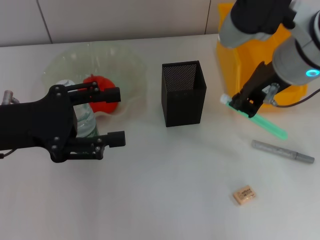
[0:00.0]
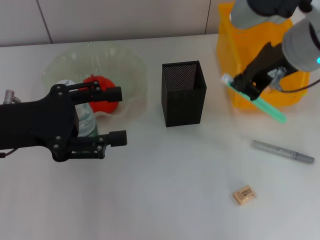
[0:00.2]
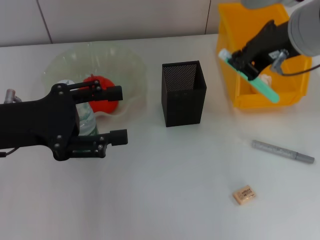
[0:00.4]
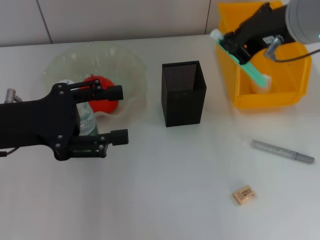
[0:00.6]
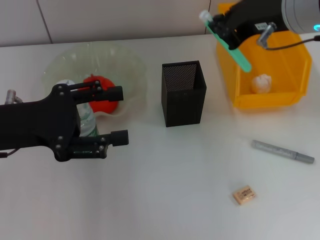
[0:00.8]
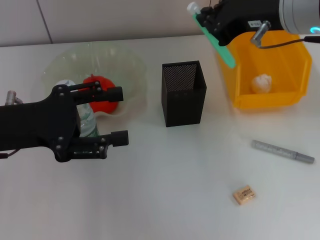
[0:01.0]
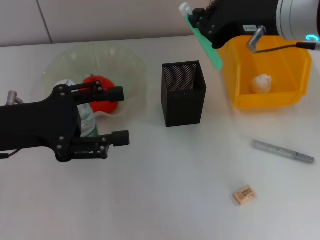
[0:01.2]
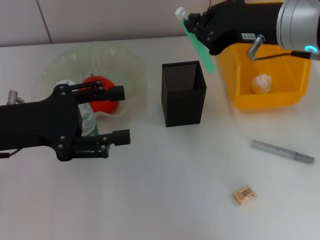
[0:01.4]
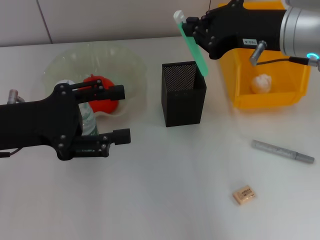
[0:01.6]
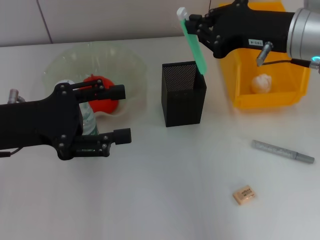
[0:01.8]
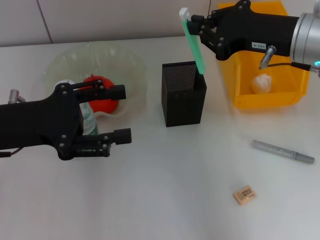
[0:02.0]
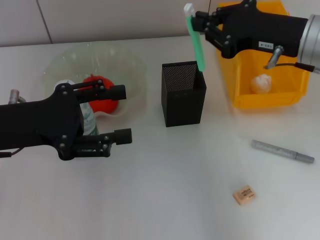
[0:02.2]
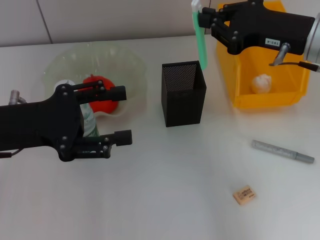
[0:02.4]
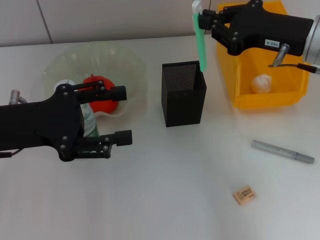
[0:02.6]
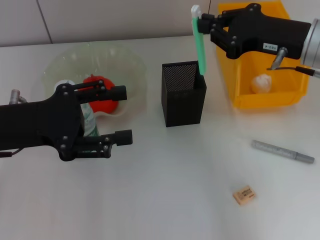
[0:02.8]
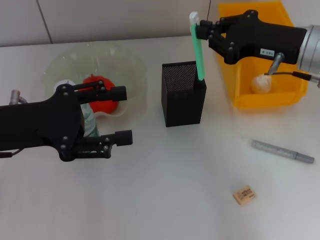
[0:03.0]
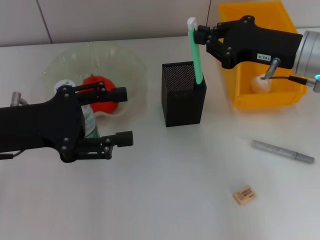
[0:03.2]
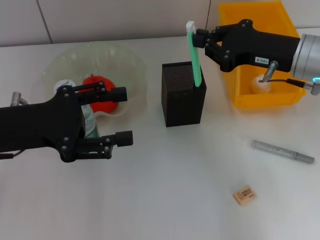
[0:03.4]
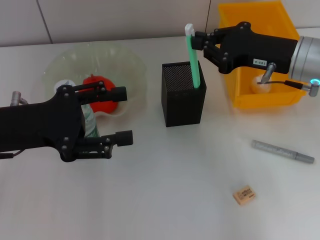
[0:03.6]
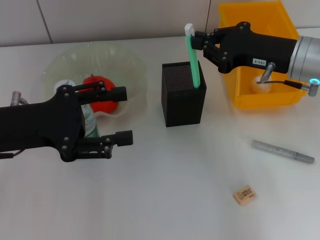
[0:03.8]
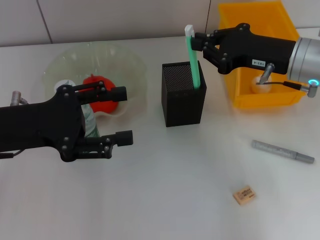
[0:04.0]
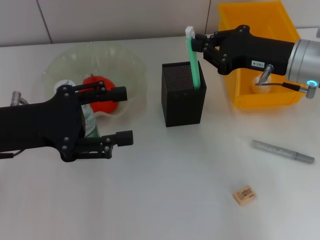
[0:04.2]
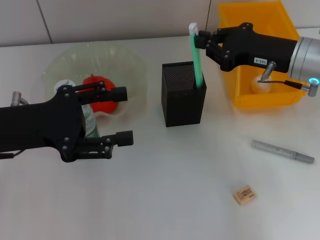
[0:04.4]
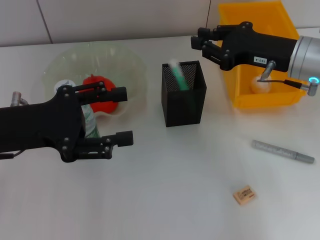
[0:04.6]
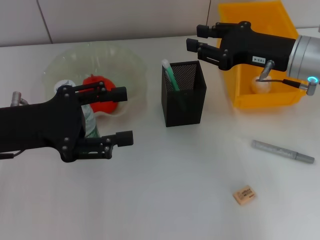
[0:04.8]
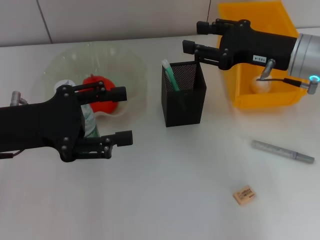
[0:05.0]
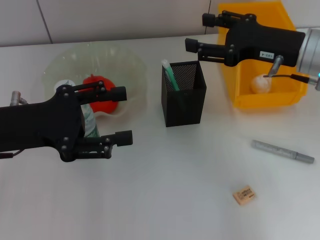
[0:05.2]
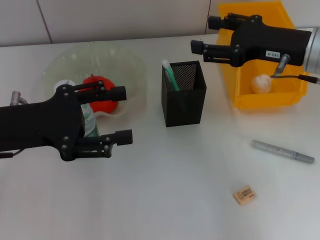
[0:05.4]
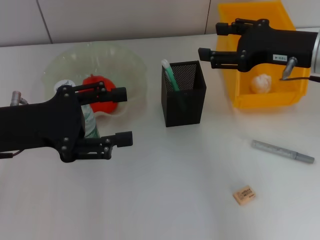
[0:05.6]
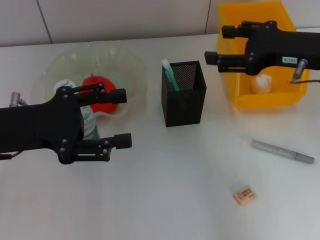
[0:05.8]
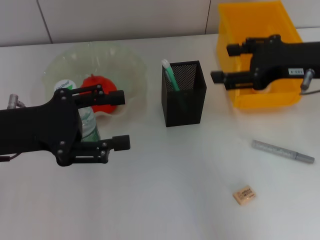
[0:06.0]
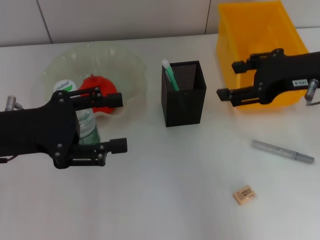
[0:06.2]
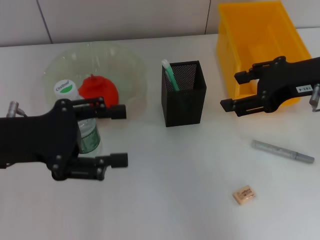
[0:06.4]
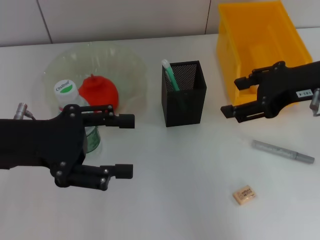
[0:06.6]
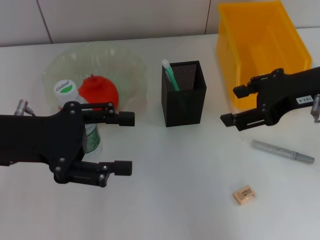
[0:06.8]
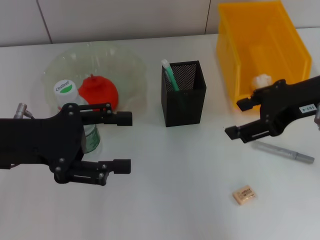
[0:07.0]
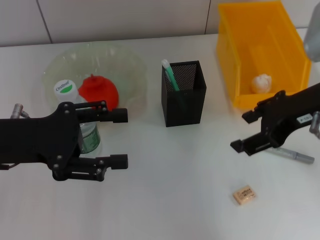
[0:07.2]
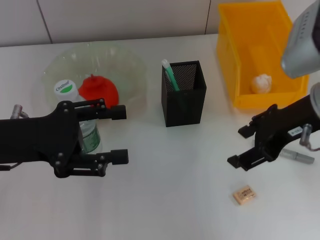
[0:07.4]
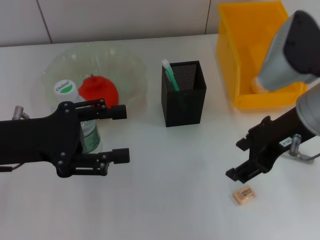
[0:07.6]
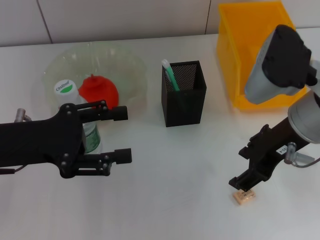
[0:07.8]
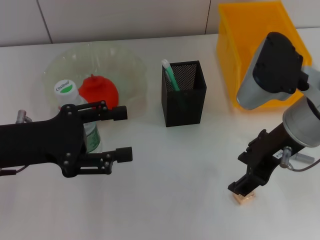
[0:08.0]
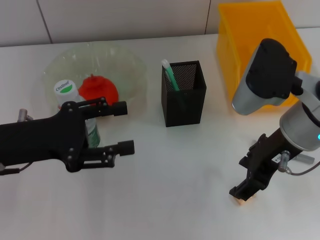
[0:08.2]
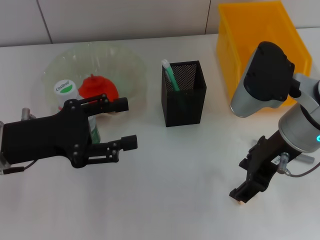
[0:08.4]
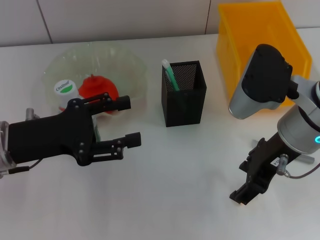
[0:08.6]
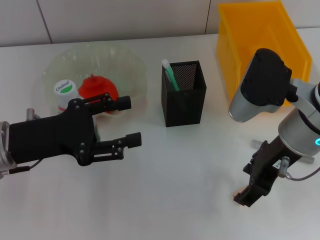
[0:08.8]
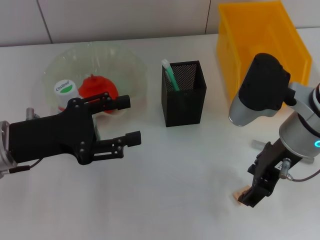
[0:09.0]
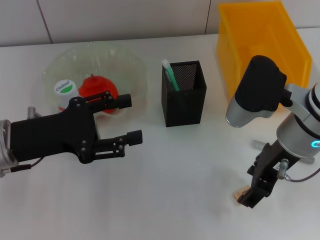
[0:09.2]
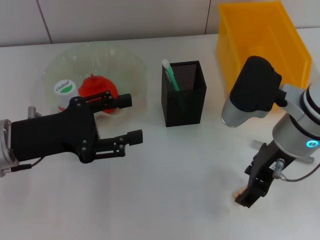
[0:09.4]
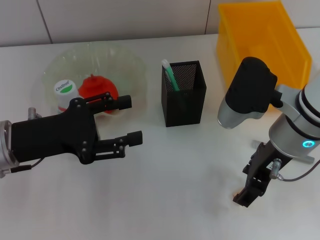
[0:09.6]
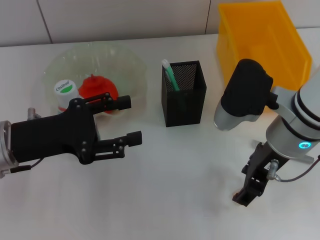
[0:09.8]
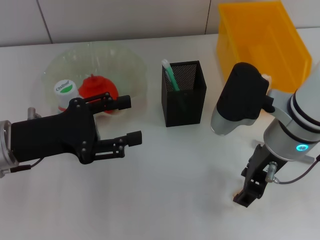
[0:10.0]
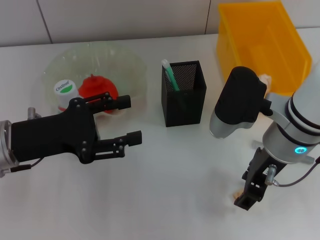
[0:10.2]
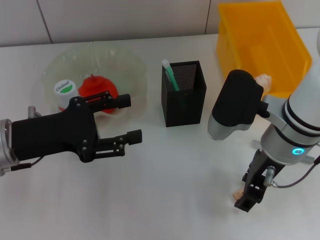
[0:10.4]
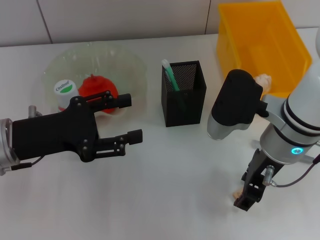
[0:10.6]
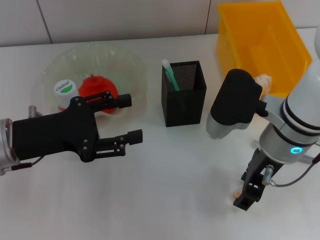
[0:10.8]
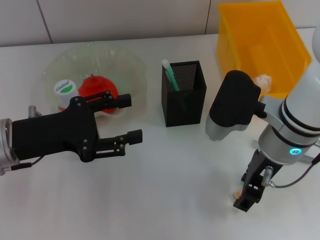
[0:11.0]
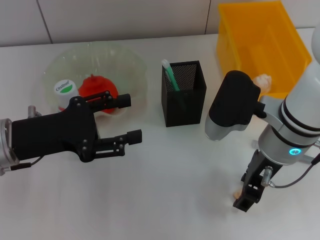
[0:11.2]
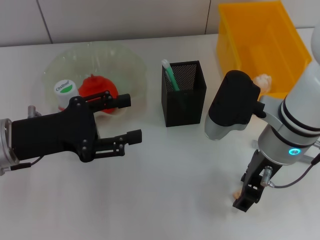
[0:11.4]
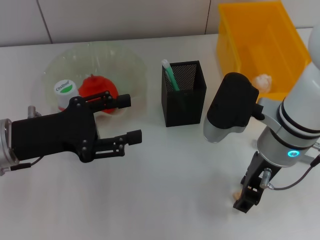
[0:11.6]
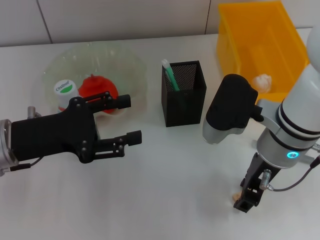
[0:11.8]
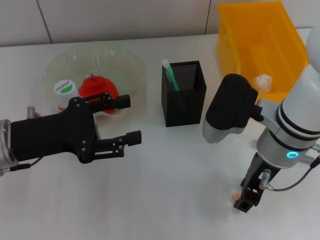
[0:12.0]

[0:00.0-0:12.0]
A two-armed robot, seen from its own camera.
Step, 0:00.0 to 0:04.6: Place the blue utility knife into the pen holder with the right hand.
0:01.6 to 0:03.0: The right gripper ends up roughly 5 cm from where it was.
0:03.0 to 0:04.4: The grippers move only a little.
0:04.4 to 0:06.0: The right gripper moves upward, some 5 cm, and opens.
0:06.0 to 0:07.6: The right gripper travels to the left by some 5 cm.
0:07.6 to 0:09.0: The grippers make only small movements.
0:09.0 to 0:10.4: The grippers make only small movements.
0:10.4 to 0:12.0: The two grippers keep their place.

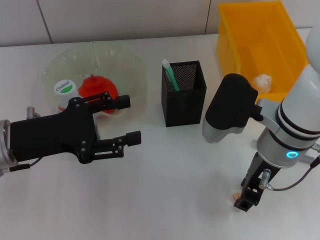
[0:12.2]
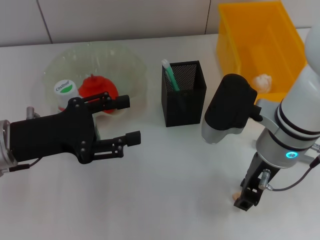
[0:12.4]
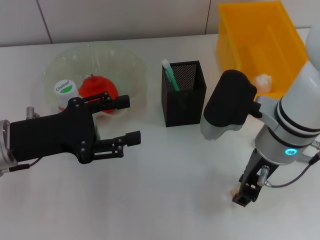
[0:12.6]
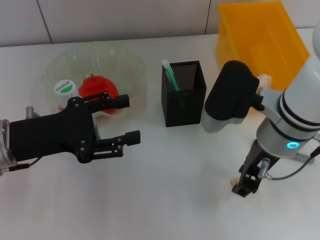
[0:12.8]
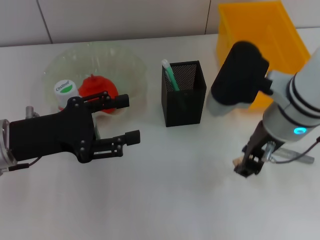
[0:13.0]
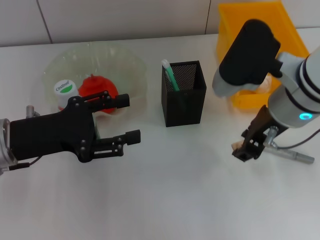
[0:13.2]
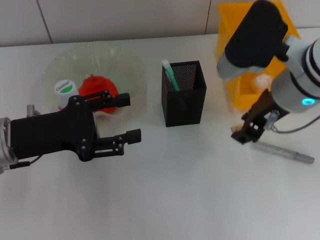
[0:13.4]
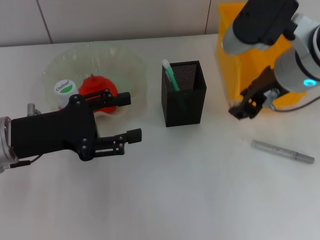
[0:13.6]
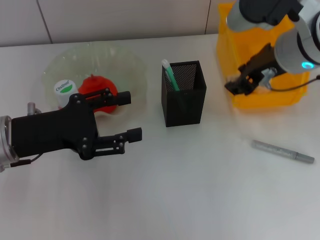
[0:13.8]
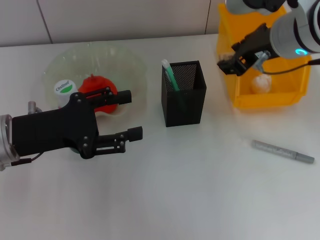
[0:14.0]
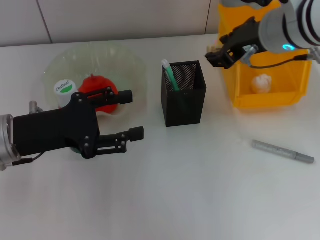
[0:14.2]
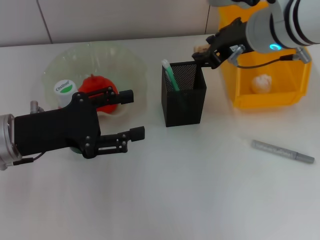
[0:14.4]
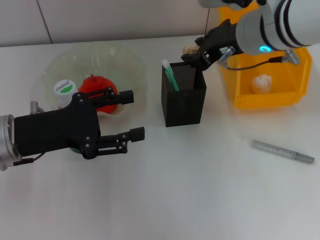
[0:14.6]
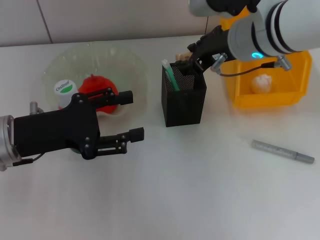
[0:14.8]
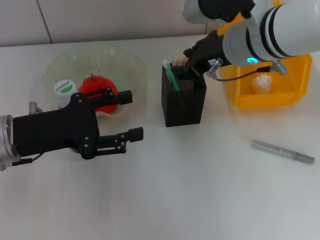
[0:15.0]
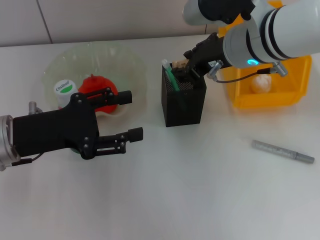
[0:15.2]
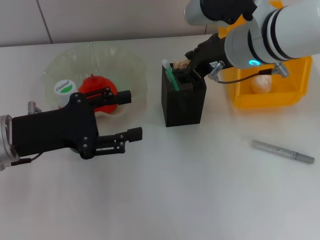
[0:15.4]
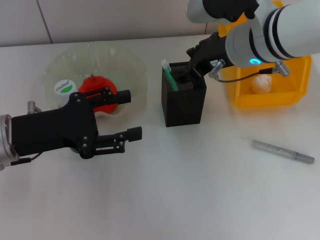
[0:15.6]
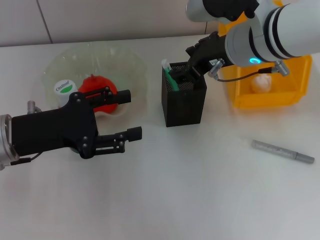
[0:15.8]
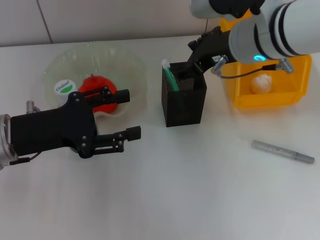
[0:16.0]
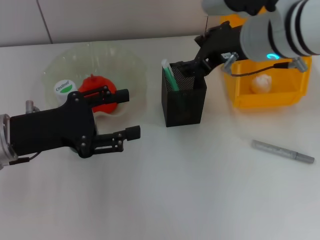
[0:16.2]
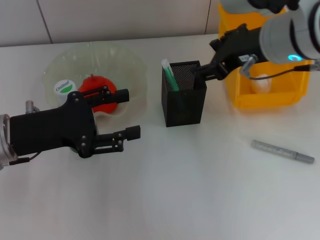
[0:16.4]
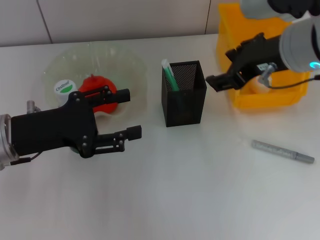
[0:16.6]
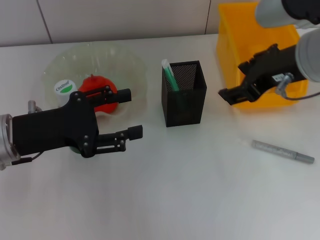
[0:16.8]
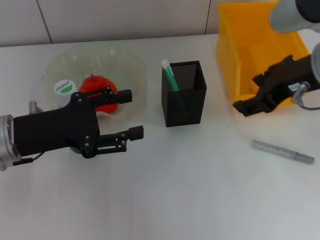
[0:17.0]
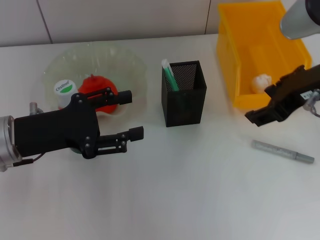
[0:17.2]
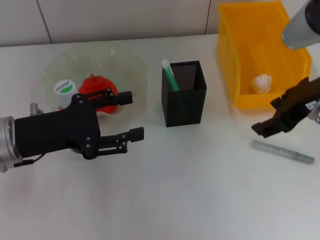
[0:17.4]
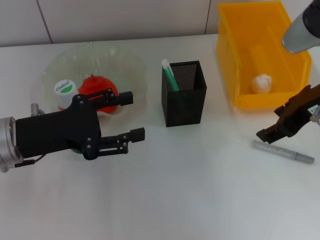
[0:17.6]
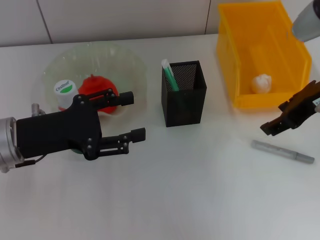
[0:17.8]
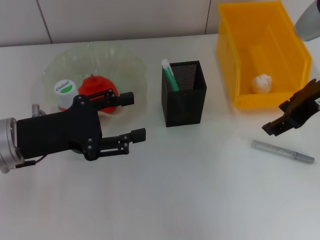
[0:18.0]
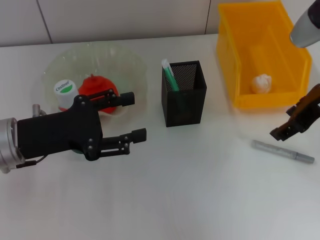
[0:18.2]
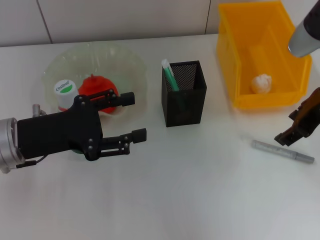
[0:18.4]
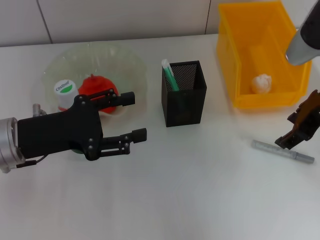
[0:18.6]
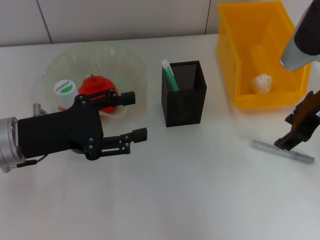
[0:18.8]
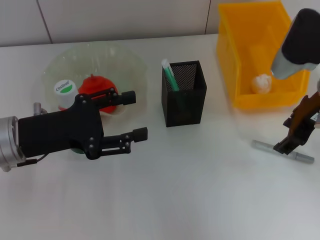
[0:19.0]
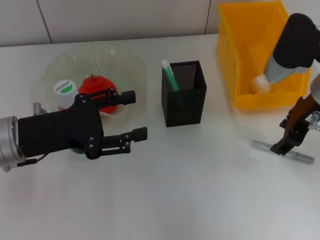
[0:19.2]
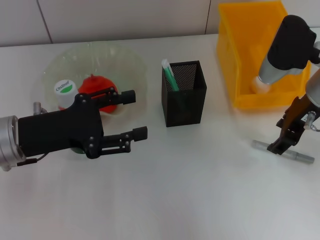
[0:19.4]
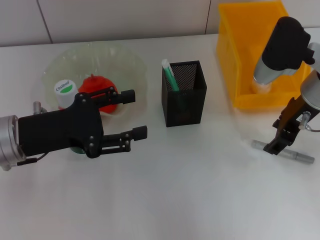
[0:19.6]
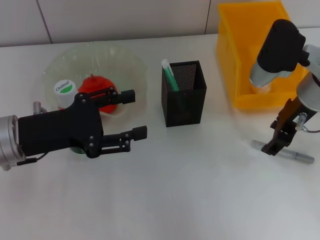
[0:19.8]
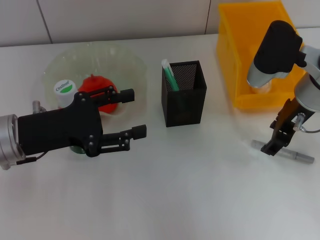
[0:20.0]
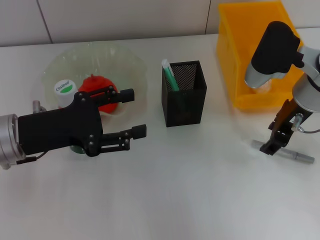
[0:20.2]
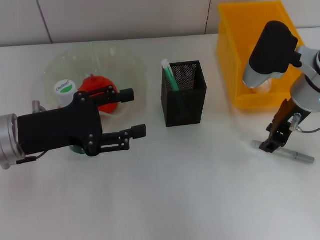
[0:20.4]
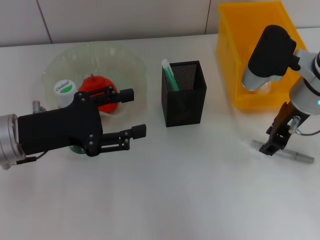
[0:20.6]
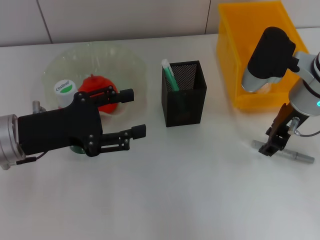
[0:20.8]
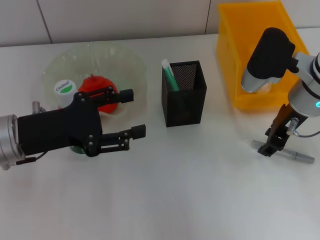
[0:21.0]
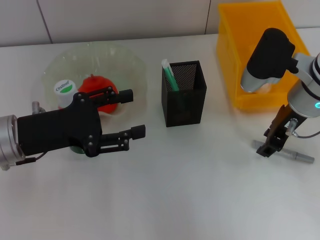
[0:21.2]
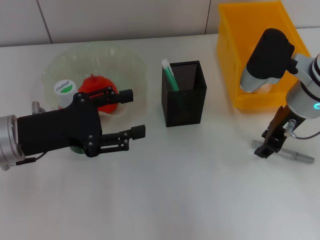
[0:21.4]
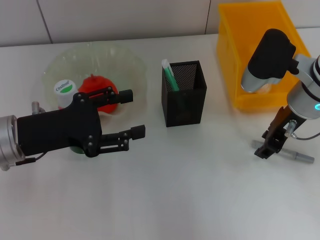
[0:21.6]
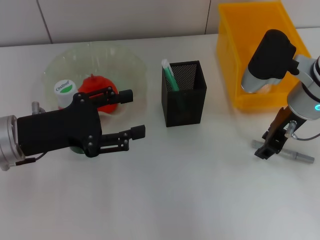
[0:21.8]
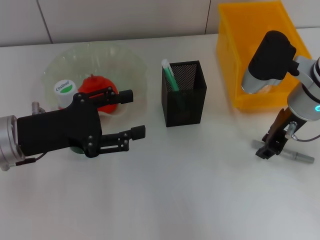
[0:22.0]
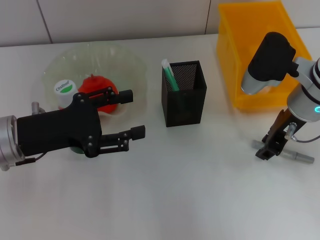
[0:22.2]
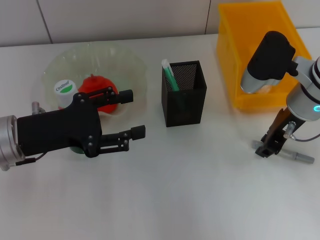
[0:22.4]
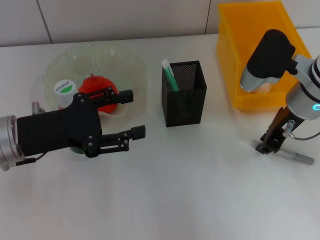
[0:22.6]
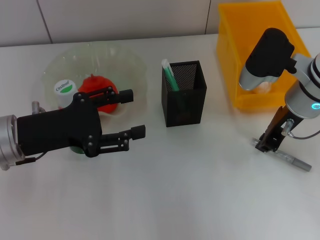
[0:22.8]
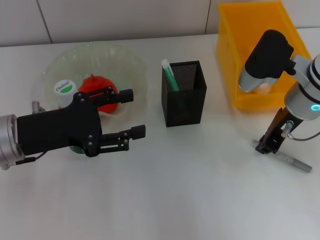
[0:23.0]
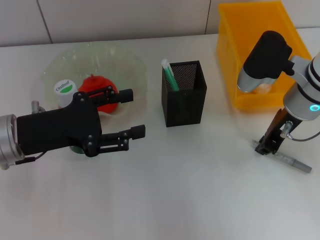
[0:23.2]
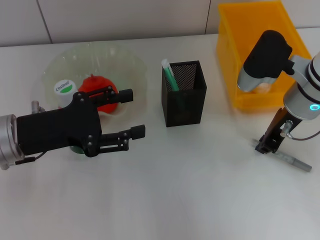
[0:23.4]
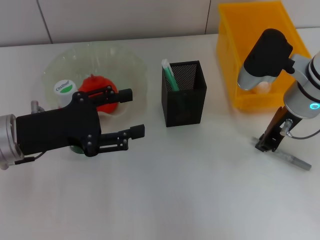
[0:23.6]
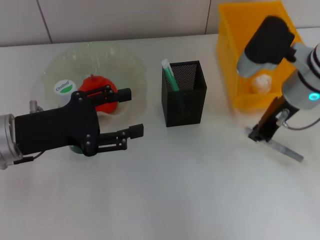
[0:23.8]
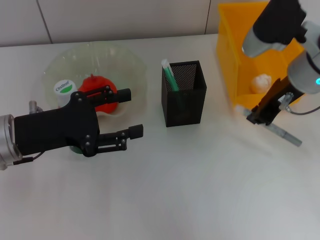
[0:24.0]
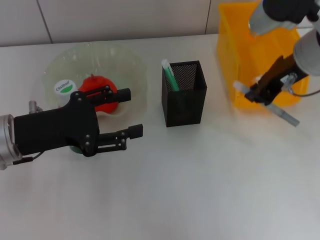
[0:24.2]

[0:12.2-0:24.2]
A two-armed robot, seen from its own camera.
Step, 0:12.4 to 0:15.6: Put the eraser into the pen holder with the right hand.
Step, 0:15.8 to 0:23.2: Grab the gray glue with the right hand.
0:12.2 to 0:13.8: The right gripper travels upward by some 10 cm.
0:13.8 to 0:15.2: The right gripper ends up approximately 5 cm from where it was.
0:15.2 to 0:16.6: The right gripper shifts by some 5 cm, and opens up.
0:16.6 to 0:18.2: The right gripper heads to the right, covering approximately 5 cm.
0:18.2 to 0:19.8: The right gripper moves downward, some 5 cm.
0:19.8 to 0:21.2: The grippers stay close to where they were, moving slightly.
0:21.2 to 0:22.6: Both grippers stay about where they are.
0:22.6 to 0:24.2: The right gripper moves upward, about 10 cm.
